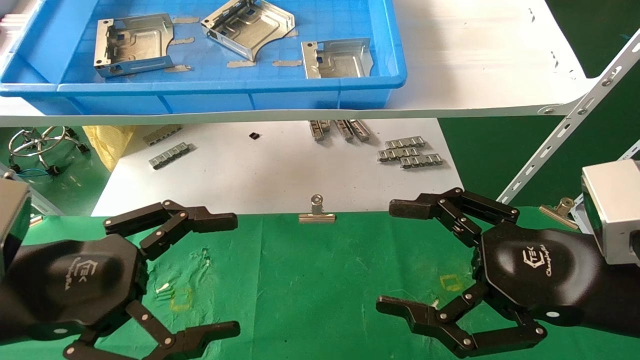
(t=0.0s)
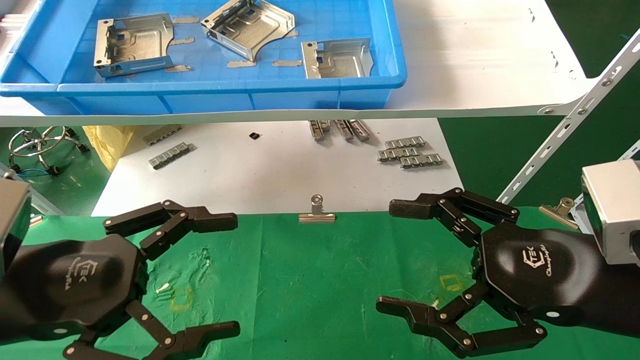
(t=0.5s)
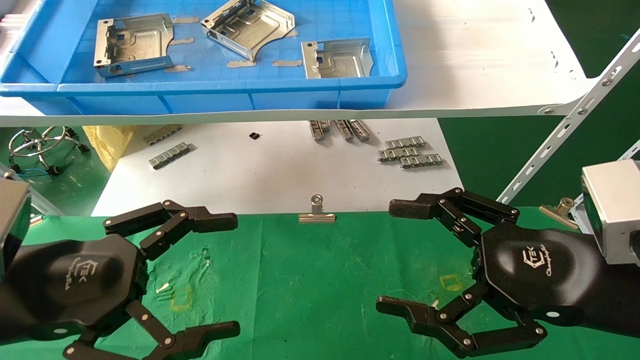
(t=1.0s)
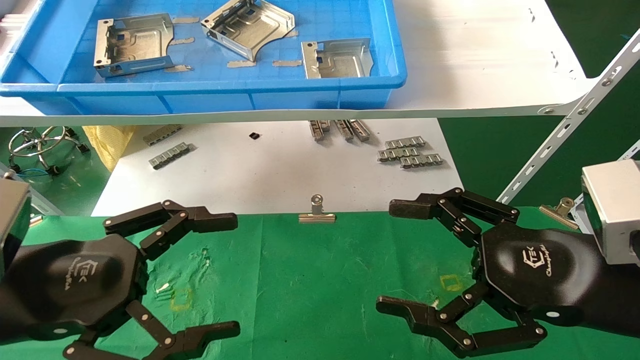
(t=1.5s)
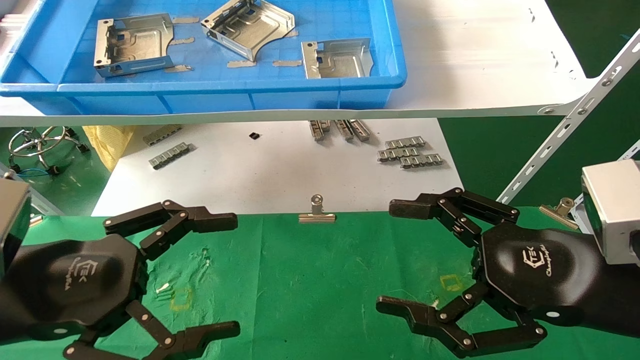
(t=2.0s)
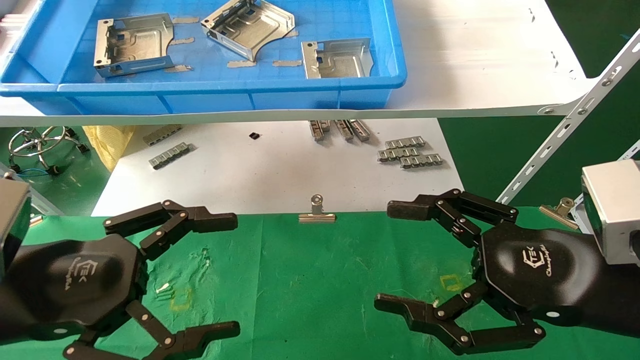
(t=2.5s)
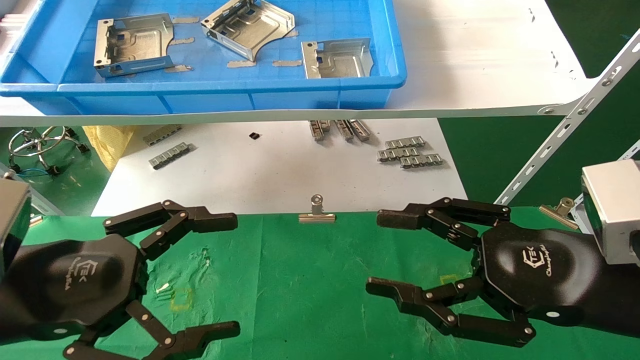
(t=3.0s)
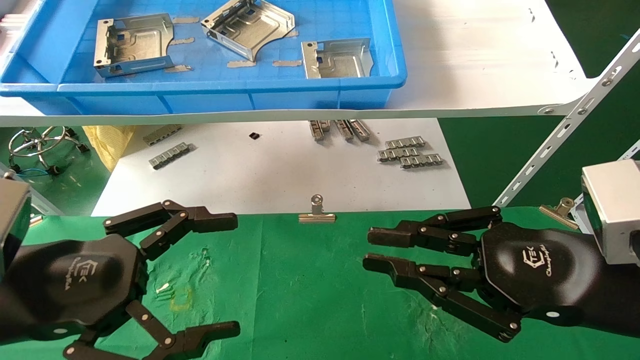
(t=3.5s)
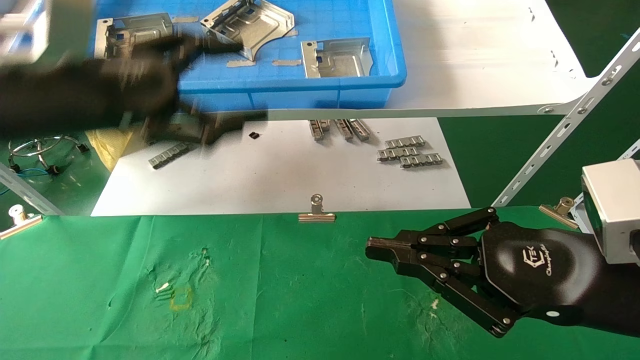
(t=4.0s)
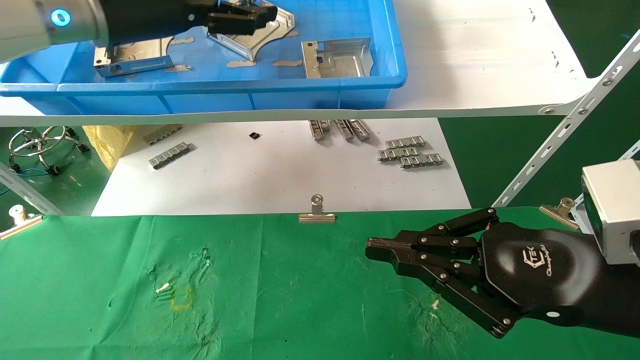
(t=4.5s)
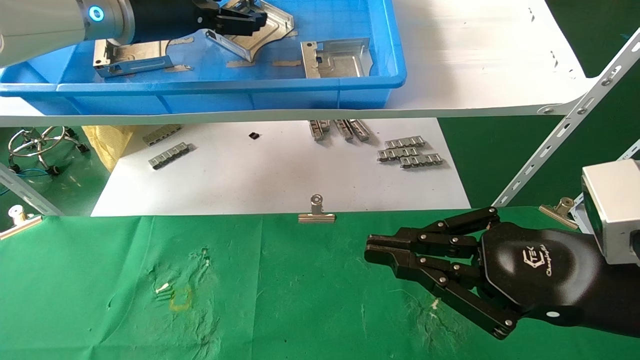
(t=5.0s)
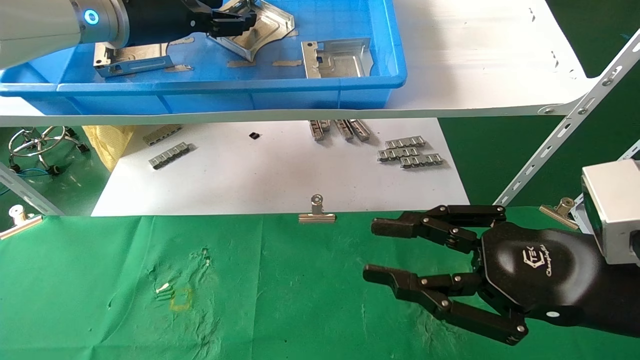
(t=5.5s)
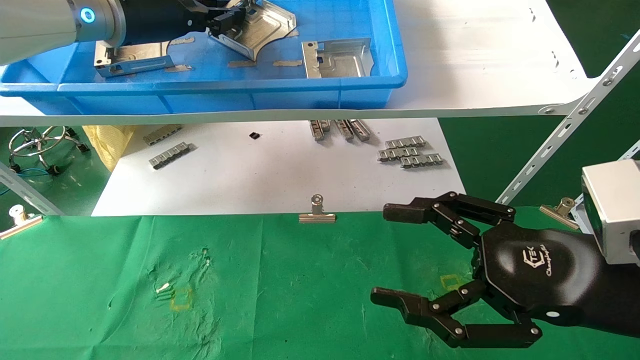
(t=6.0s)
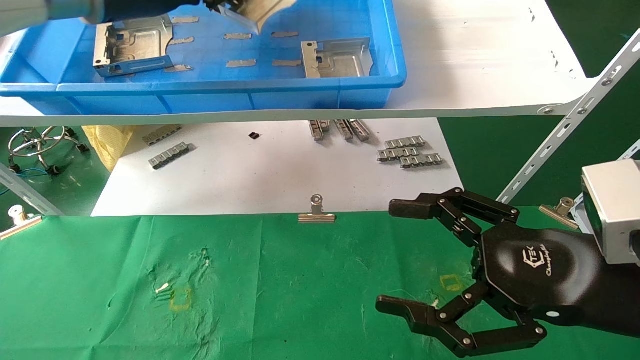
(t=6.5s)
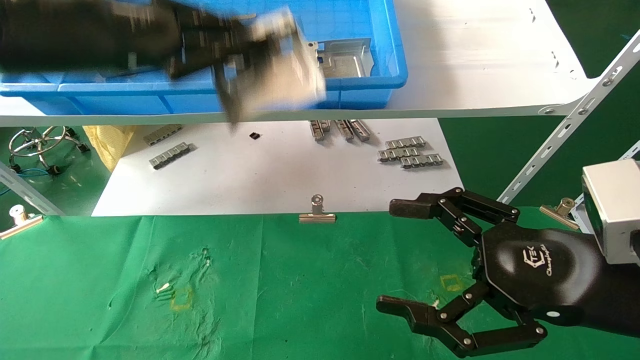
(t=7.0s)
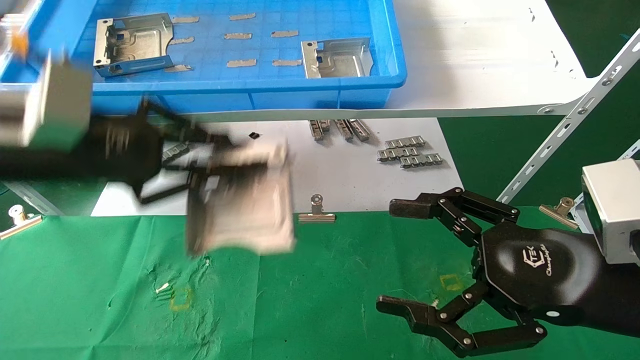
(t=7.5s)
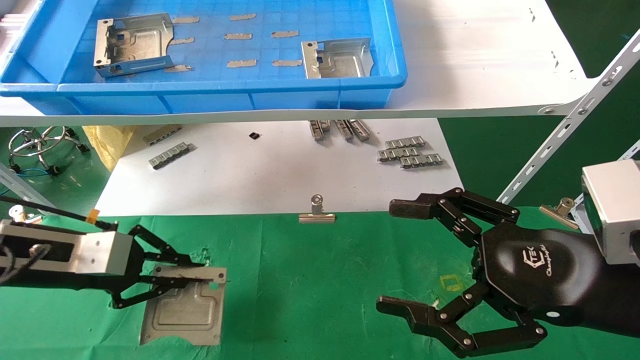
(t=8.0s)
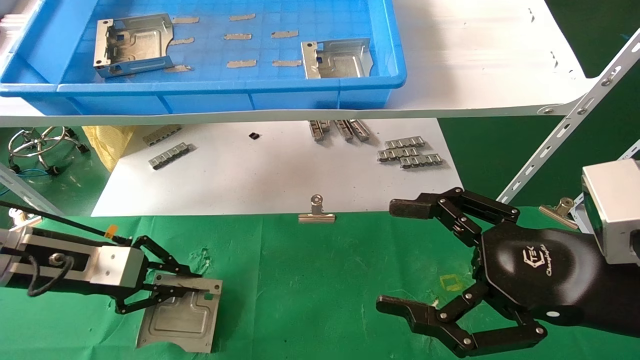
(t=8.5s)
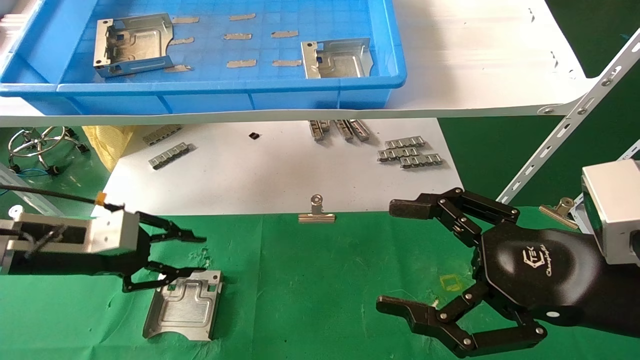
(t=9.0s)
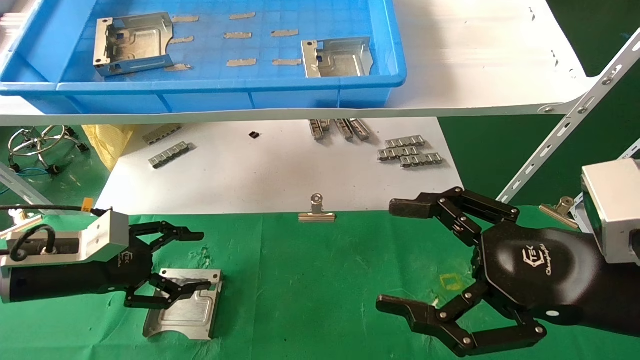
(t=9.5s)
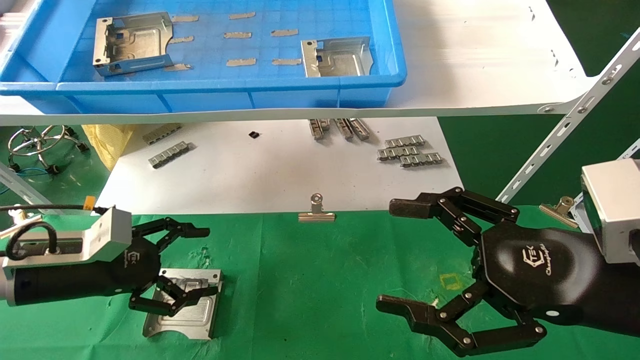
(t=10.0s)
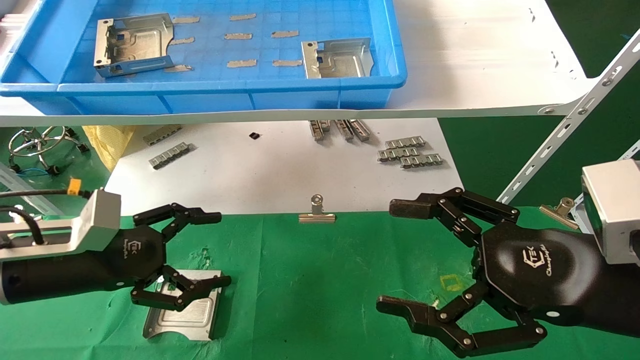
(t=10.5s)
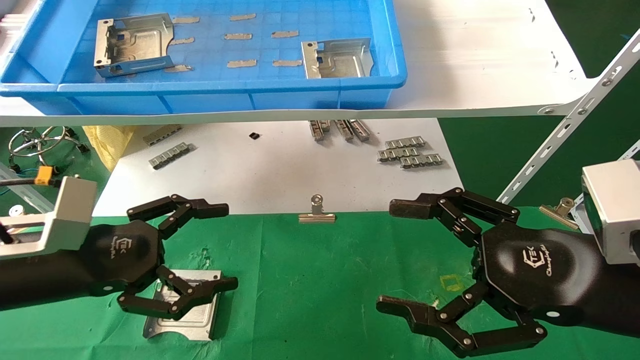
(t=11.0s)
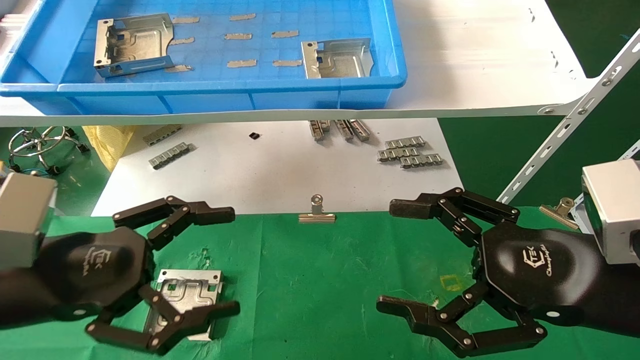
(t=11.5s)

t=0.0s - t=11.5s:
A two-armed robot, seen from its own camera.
Task of the whole recording: use the mechanical arm to pick up the parts and place them on the table.
Step, t=4.0s - t=6.0s: Pick up the hard drive bracket from the feeding area.
Step, t=6.5s - t=9.0s: Place the hard drive bracket into the box.
t=0.0s - t=2.0s: Neither gripper changes place.
t=2.0s - t=4.0s: The right gripper closes up, while the left gripper travels upward and forward by some 20 cm.
t=4.0s - t=6.0s: The right gripper opens up. Meanwhile the left gripper goes roughly 15 cm forward and upward, and closes.
t=6.0s - t=7.5s: The left gripper heads backward, downward and to the left, covering about 20 cm.
t=7.5s - t=9.5s: The left gripper goes roughly 15 cm downward, and opens up.
t=9.5s - t=11.5s: The left gripper travels backward, to the right and upward by roughly 15 cm, and opens its fingers.

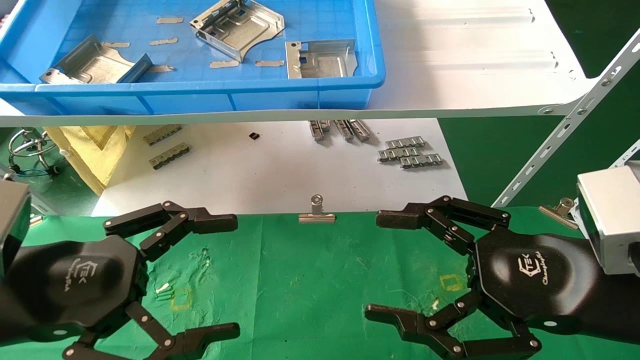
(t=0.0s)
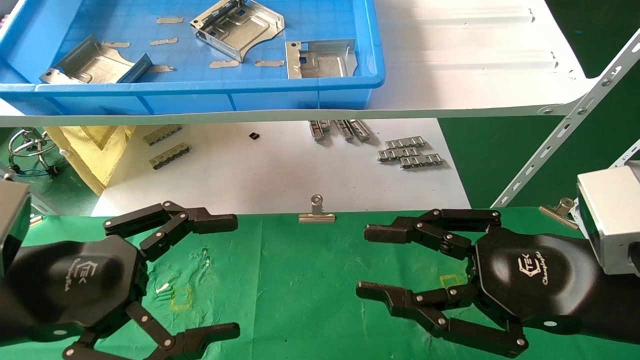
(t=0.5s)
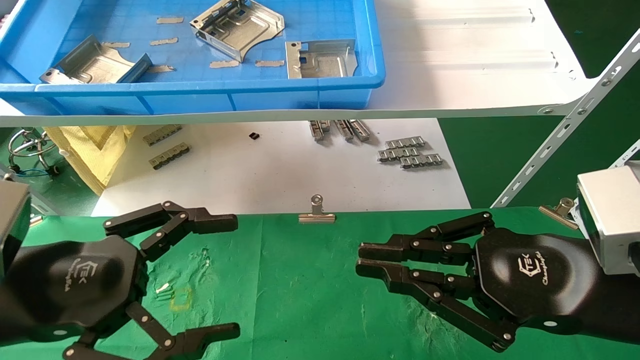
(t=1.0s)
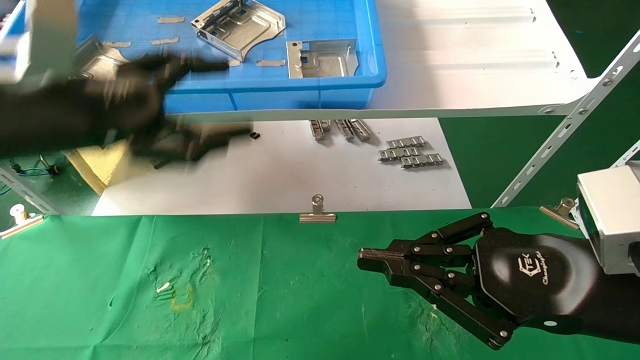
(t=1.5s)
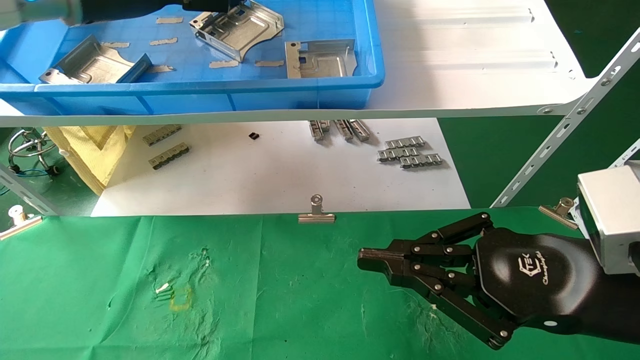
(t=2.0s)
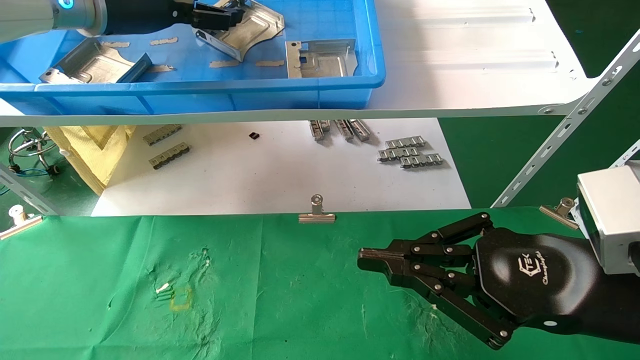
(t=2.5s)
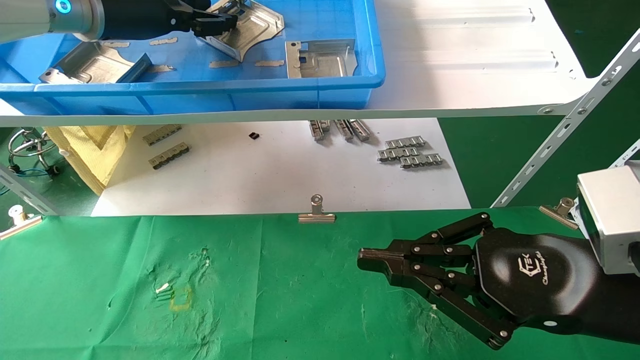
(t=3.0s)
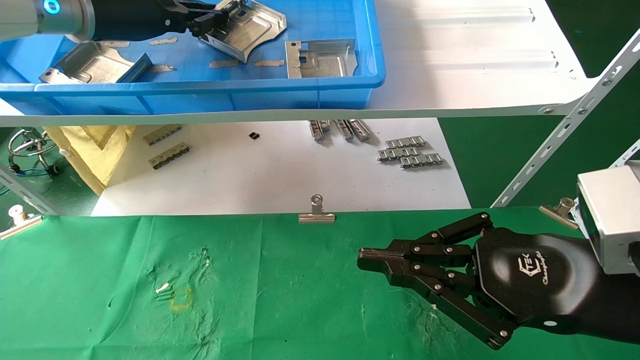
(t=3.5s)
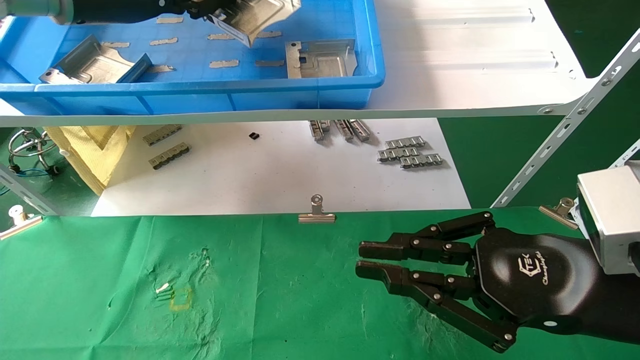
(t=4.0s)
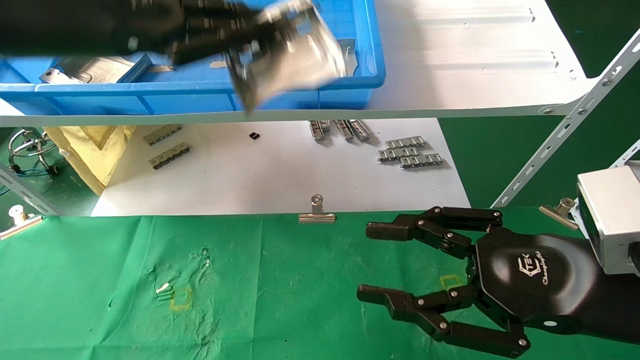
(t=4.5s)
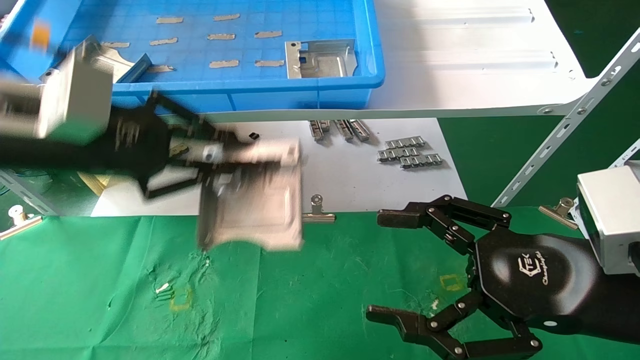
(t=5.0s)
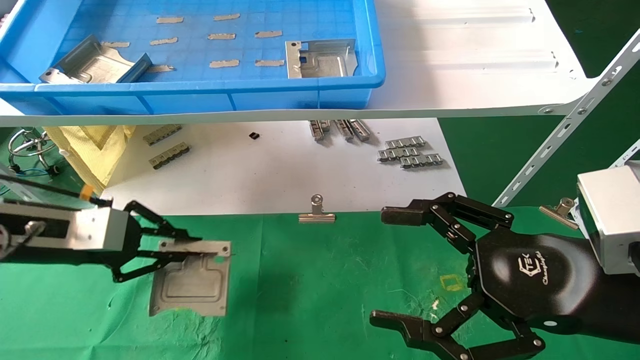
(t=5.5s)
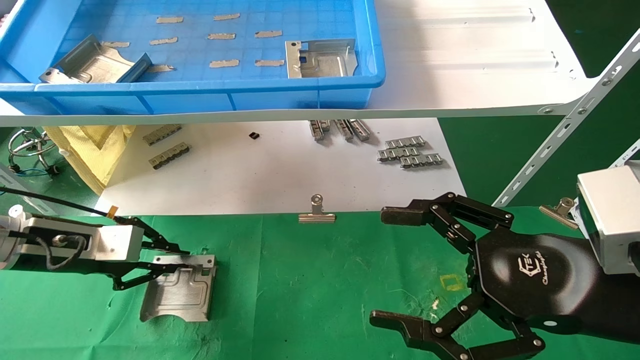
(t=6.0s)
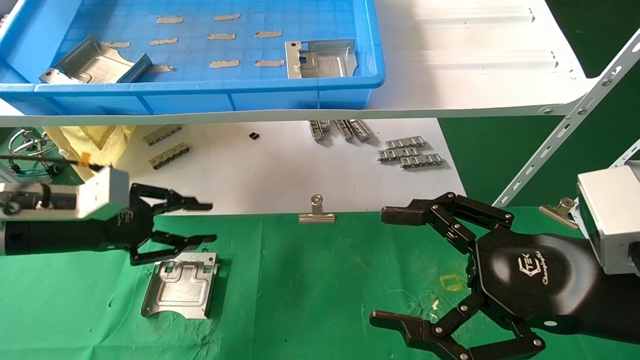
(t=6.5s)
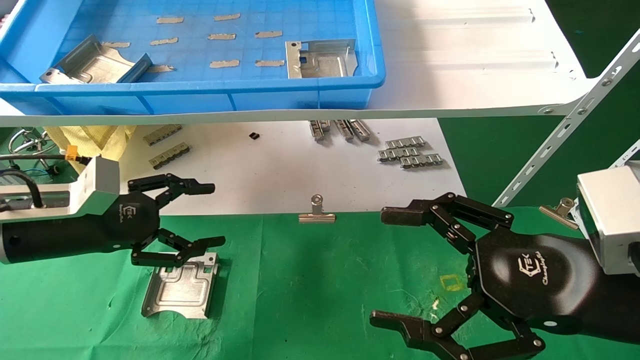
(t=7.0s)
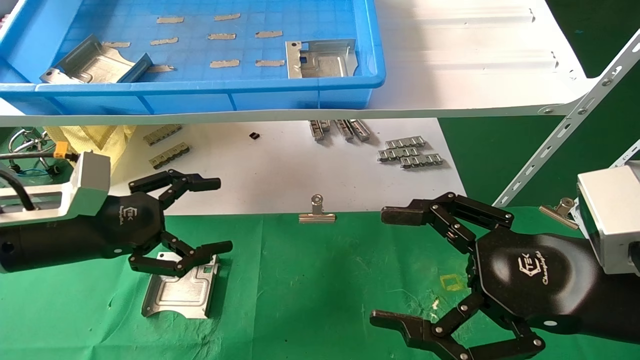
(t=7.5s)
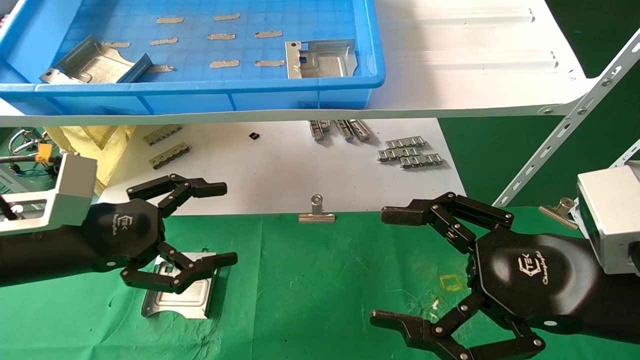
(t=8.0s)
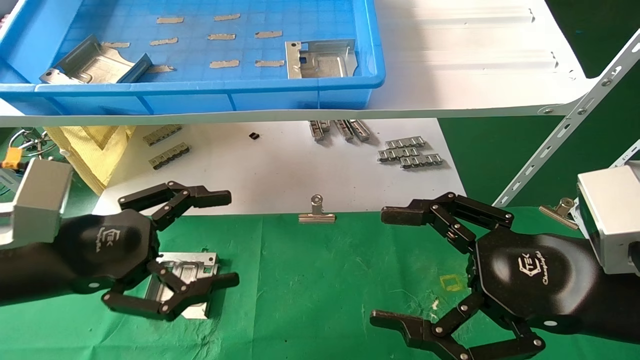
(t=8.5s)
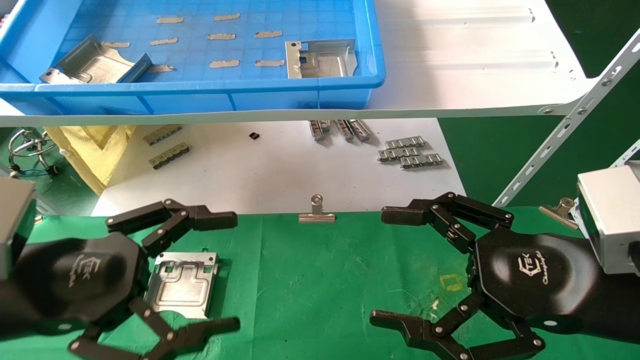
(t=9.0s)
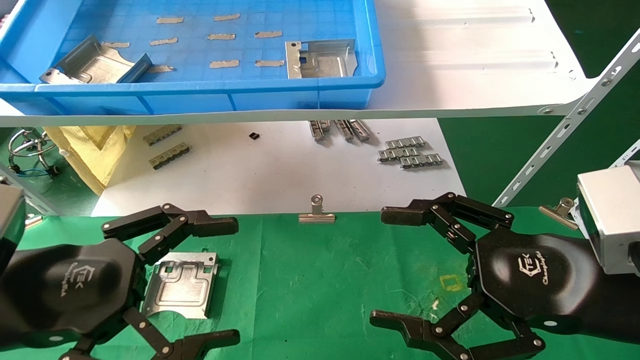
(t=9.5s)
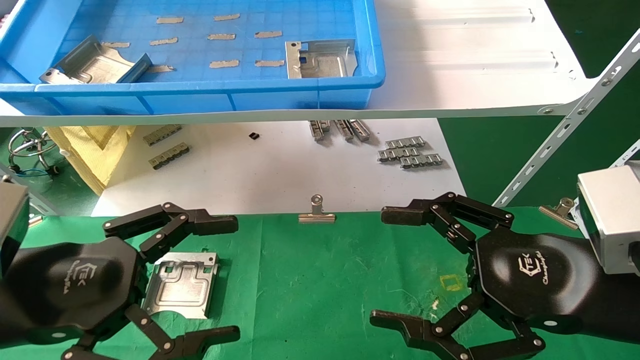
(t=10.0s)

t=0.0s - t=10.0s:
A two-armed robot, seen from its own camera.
Task of the whole recording: use the mechanical arm to pick up the parts and place them on the table.
Step, t=1.5s - t=3.5s: Pick up the hard drive bracket from the feeding area.
Step, t=4.0s - t=6.0s: Place the hard drive bracket into the box.
t=0.0s - t=2.0s: The right gripper closes; the left gripper goes roughly 30 cm upward and forward.
t=2.0s - t=4.0s: The left gripper closes.
t=4.0s - t=6.0s: The left gripper travels downward by about 25 cm. The right gripper opens its fingers.
t=6.0s - t=8.0s: The left gripper heads backward and to the right, covering approximately 10 cm, and opens up.
t=8.0s - t=10.0s: The left gripper is displaced backward by roughly 10 cm.
